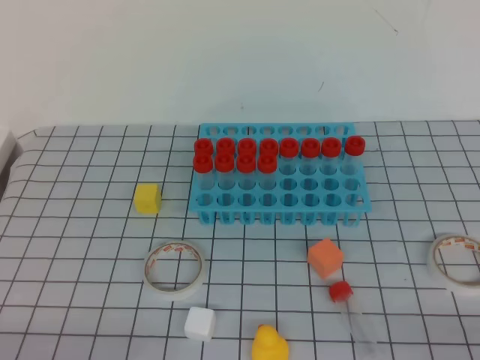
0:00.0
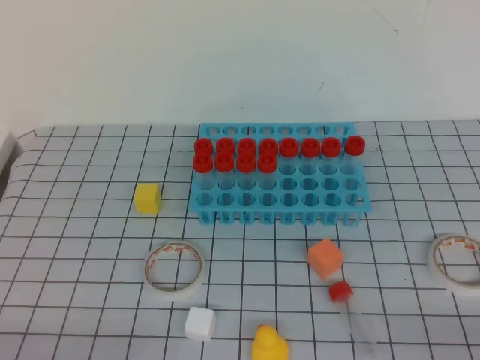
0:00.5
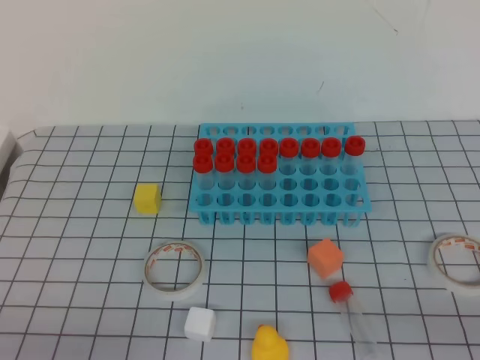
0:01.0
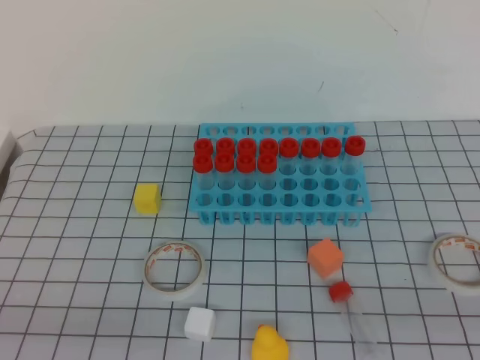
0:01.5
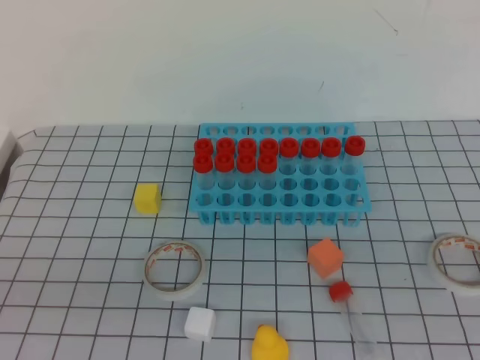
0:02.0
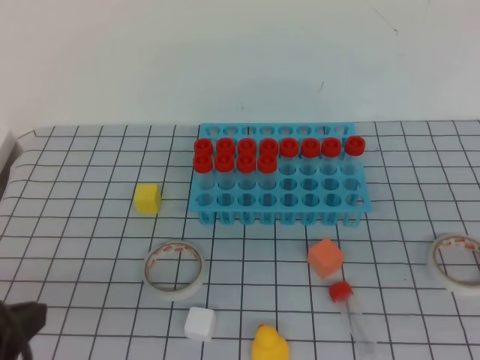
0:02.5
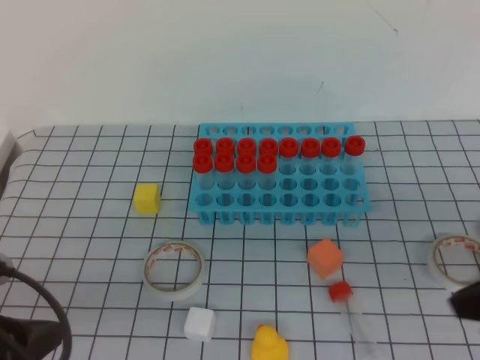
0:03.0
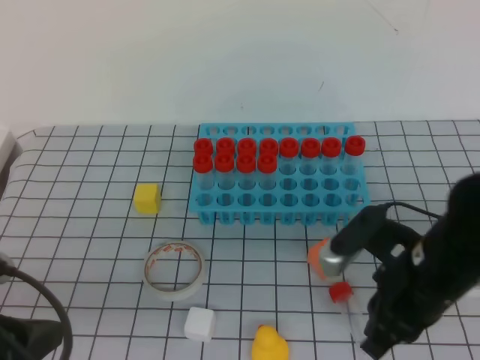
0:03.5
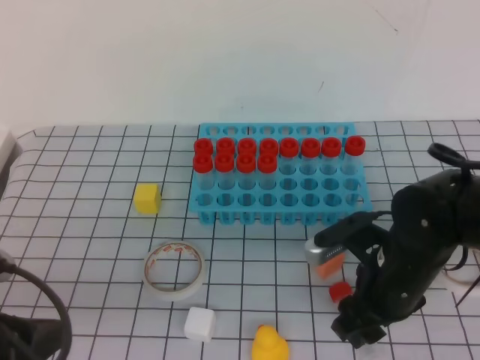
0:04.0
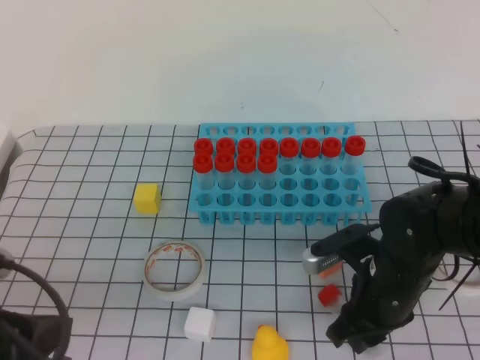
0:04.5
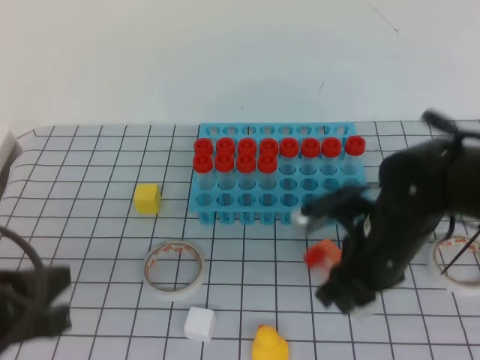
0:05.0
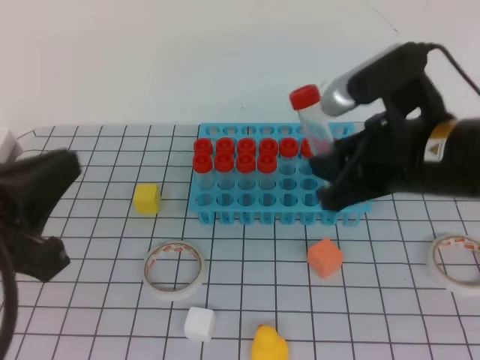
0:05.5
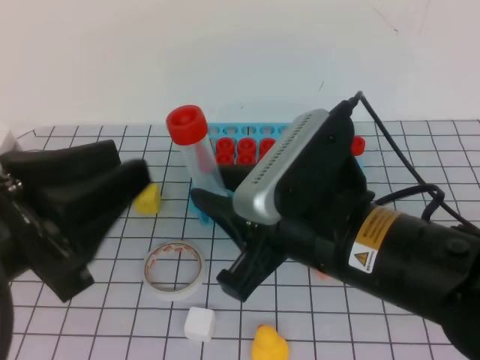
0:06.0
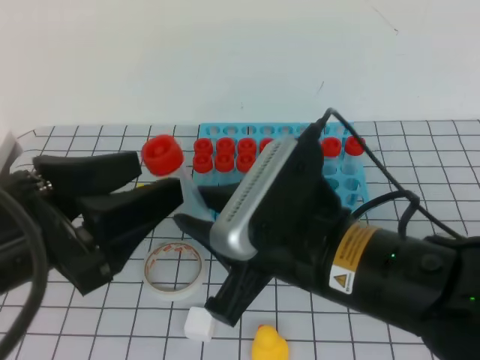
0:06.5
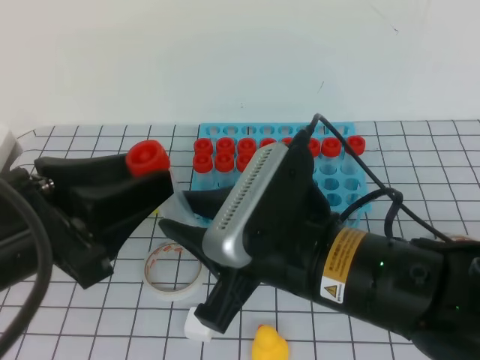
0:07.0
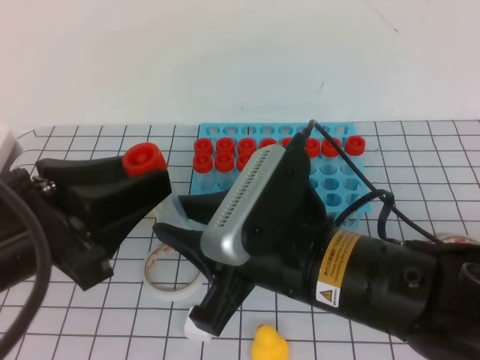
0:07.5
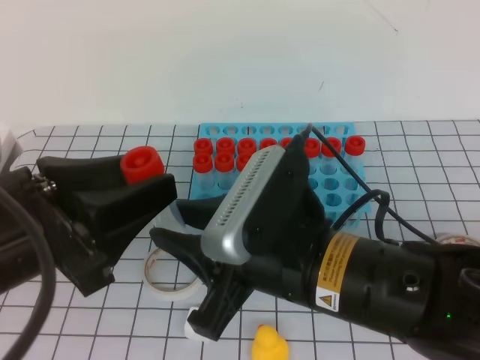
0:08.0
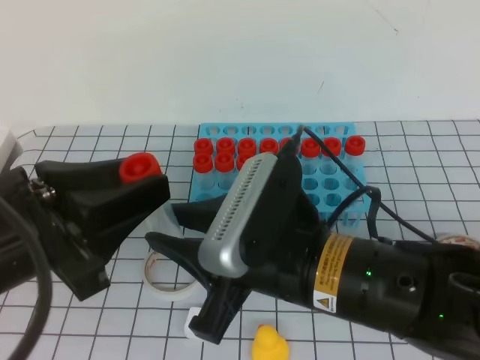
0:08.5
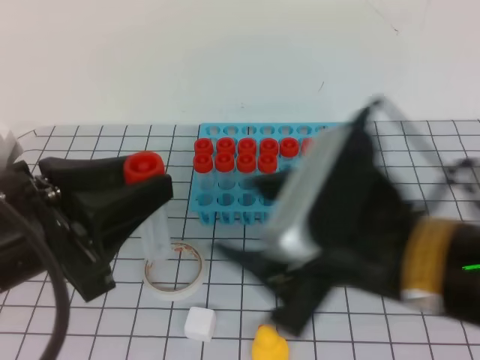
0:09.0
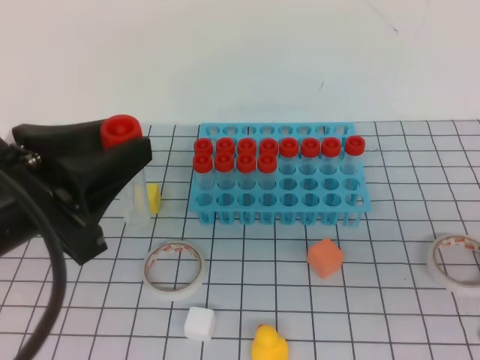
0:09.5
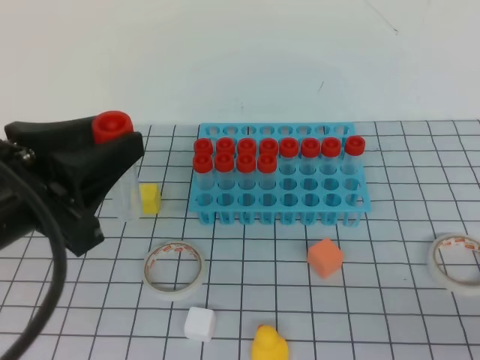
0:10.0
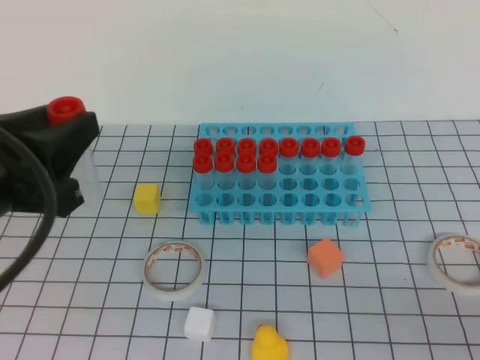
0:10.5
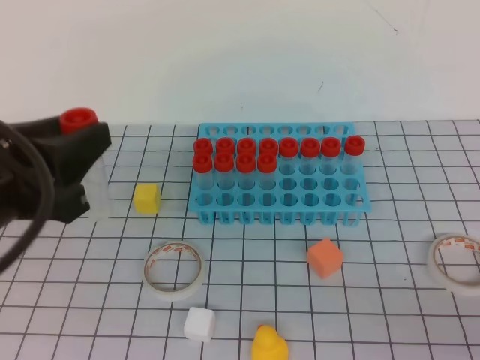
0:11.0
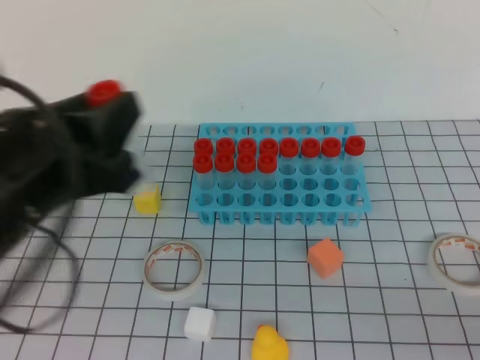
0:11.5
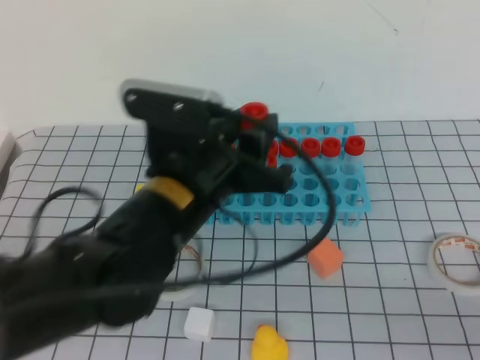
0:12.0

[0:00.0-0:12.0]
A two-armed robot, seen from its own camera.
0:02.0 to 0:04.0: The right gripper travels forward, to the left and downward by roughly 35 cm, and opens its fingers. Meanwhile the left gripper goes about 10 cm forward.
0:04.0 to 0:06.0: The right gripper heads upward, backward and to the left, covering about 15 cm, and closes. The left gripper is displaced upward by approximately 10 cm, and opens its fingers.
0:08.0 to 0:10.0: The right gripper is displaced to the right and backward by about 25 cm, and closes up.
0:10.0 to 0:12.0: The left gripper moves to the right and forward, roughly 15 cm.

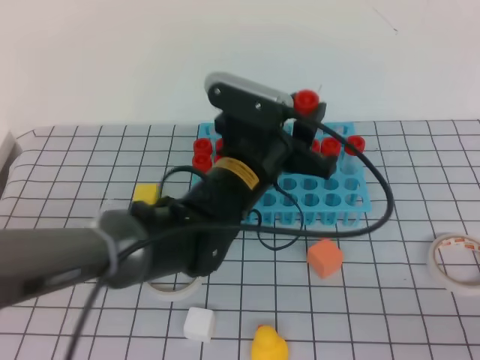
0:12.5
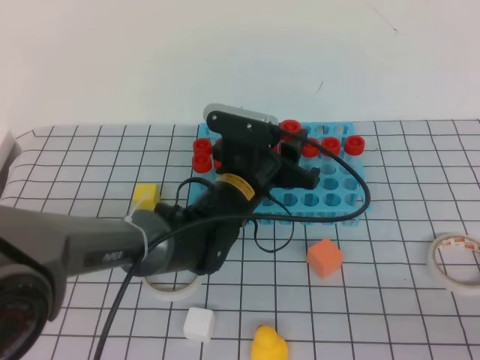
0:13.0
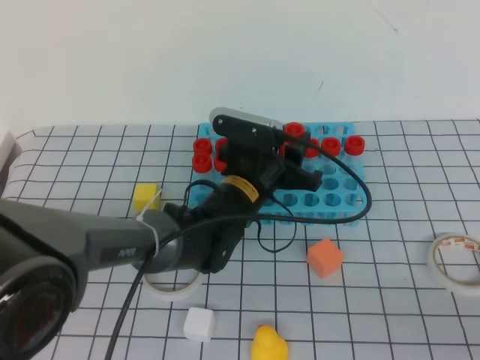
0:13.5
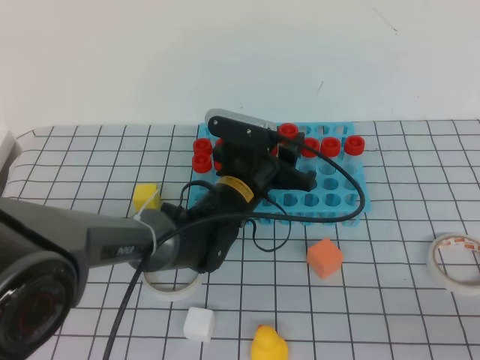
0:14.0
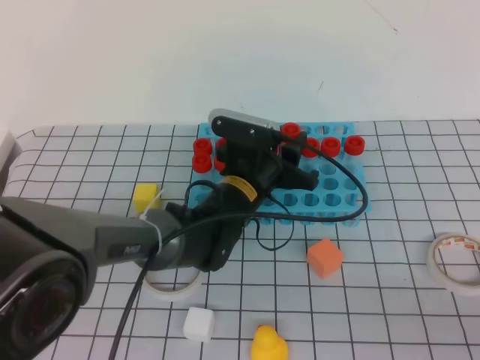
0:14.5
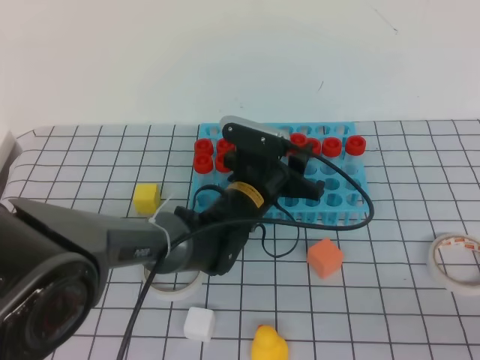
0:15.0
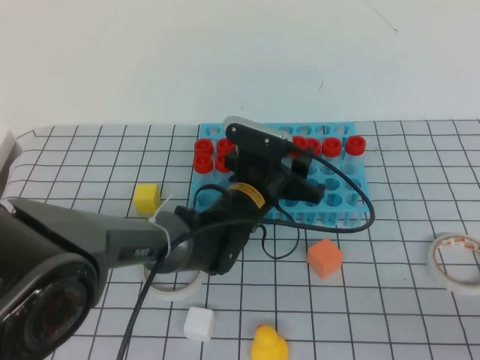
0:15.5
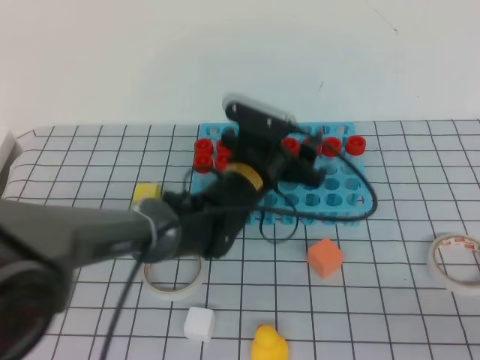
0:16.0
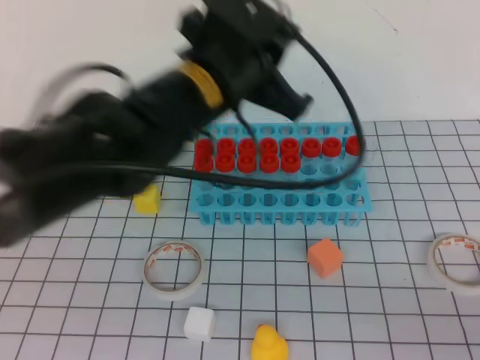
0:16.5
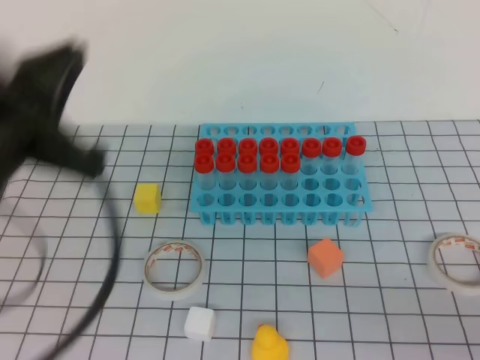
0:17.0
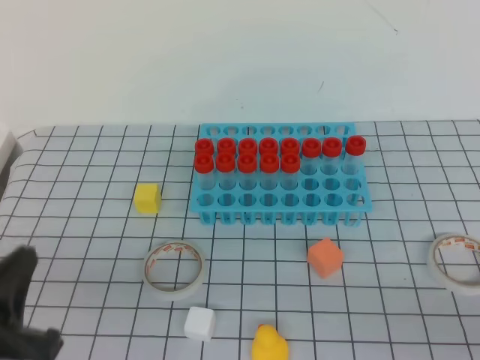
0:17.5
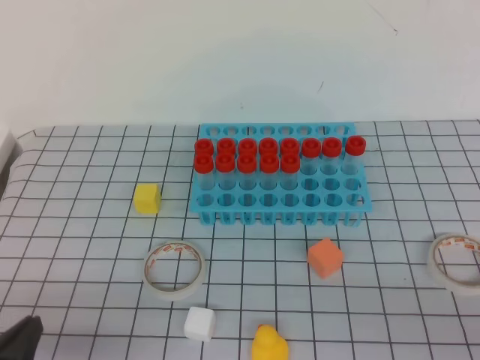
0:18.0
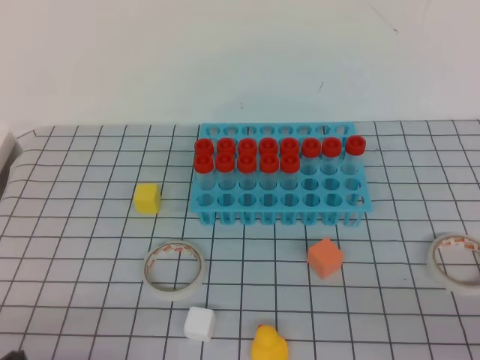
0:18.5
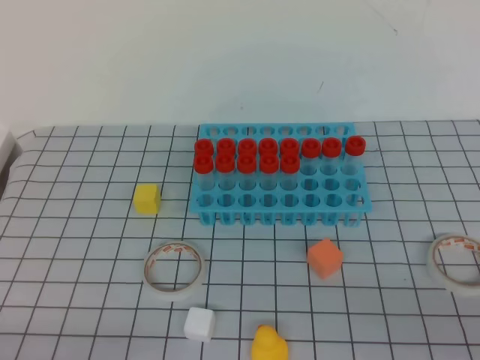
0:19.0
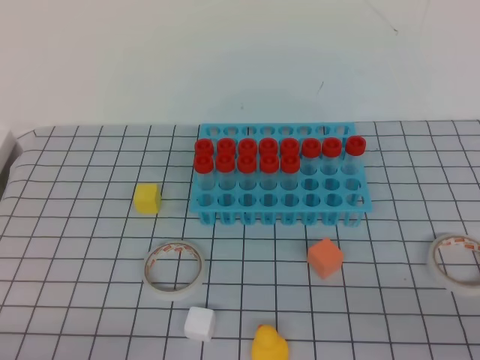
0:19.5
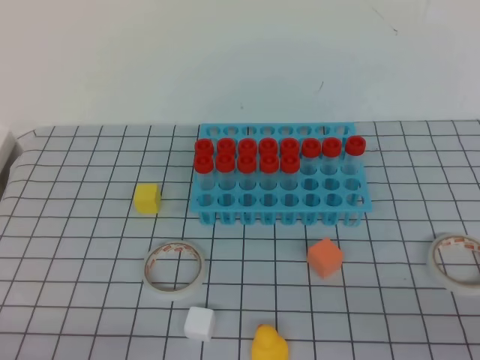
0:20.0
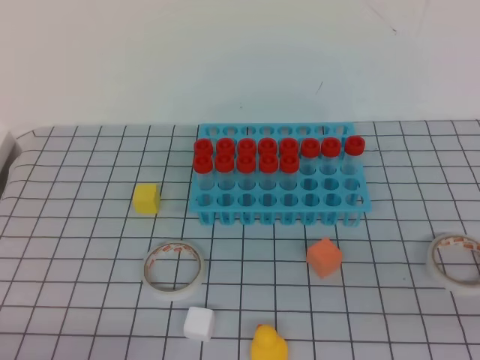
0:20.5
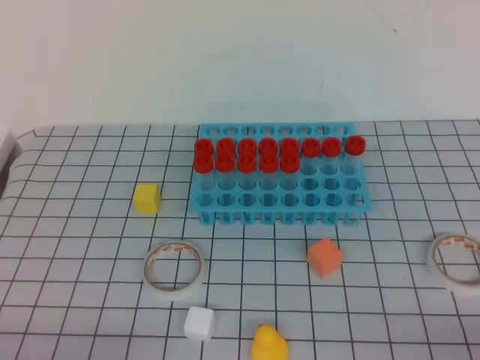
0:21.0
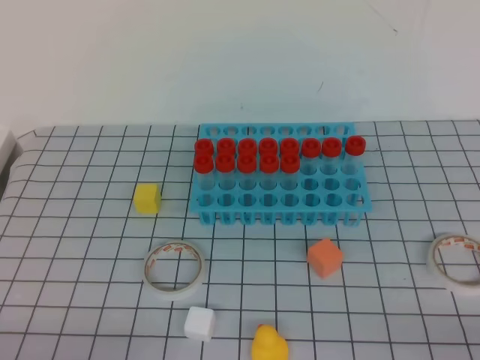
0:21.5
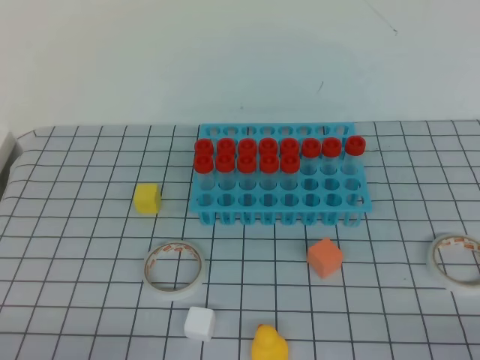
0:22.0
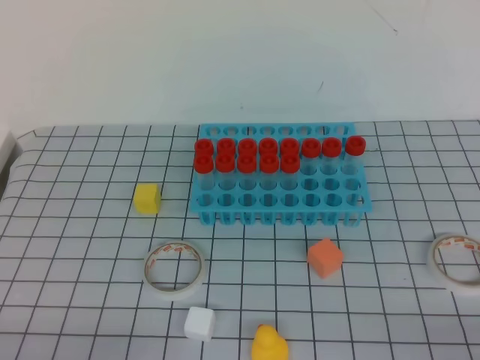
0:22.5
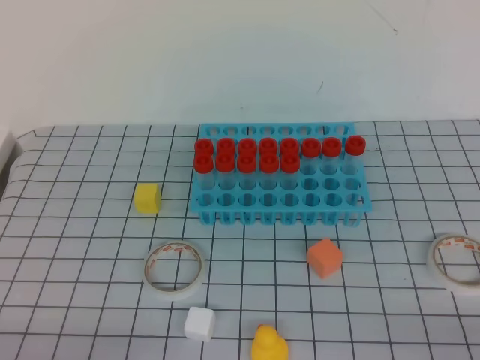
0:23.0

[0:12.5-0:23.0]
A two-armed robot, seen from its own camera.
0:12.5 to 0:14.5: The left gripper travels downward and forward by roughly 10 cm.
0:14.5 to 0:16.5: The left gripper is displaced upward by roughly 20 cm, and closes up.
0:16.5 to 0:19.0: The left gripper heads backward, to the left and downward, covering about 40 cm.
0:19.0 to 0:21.0: The right gripper goes about 15 cm downward and to the right.

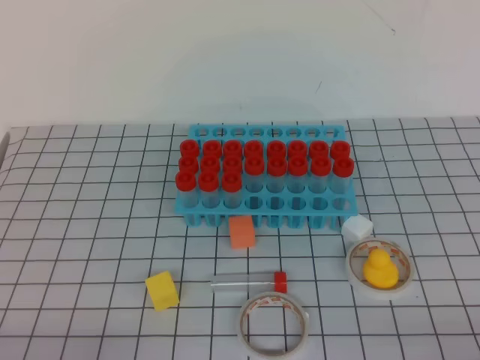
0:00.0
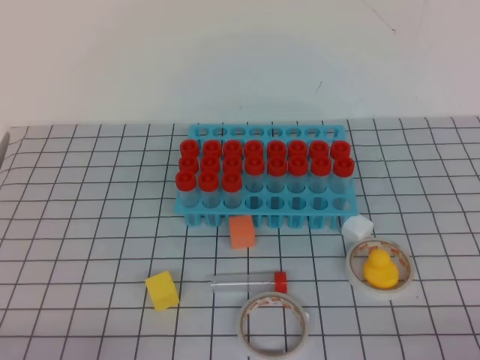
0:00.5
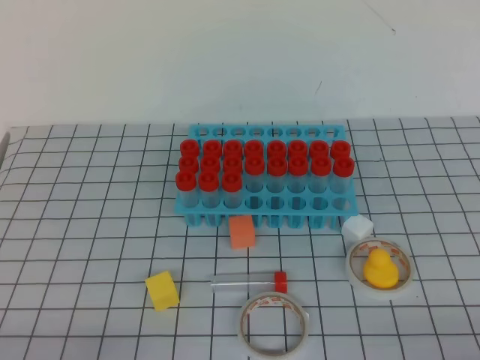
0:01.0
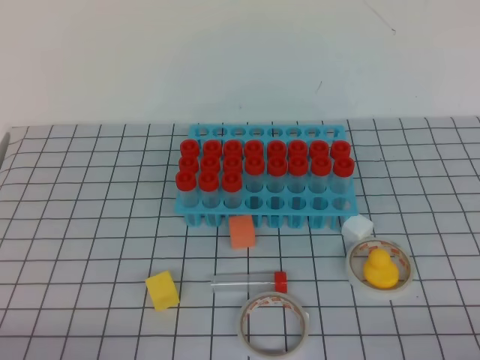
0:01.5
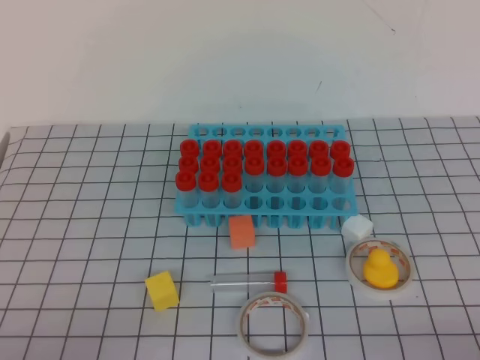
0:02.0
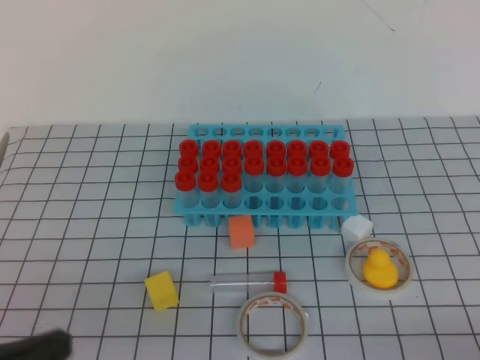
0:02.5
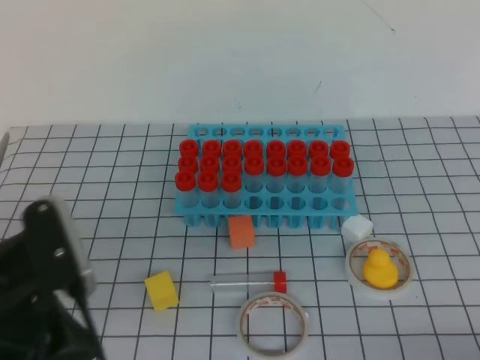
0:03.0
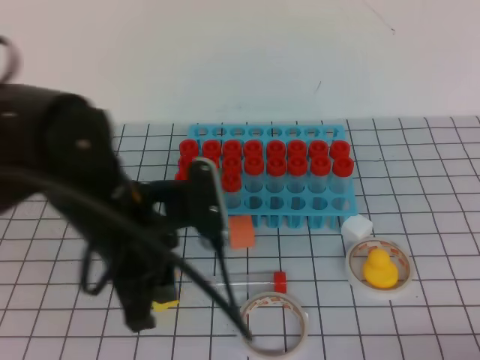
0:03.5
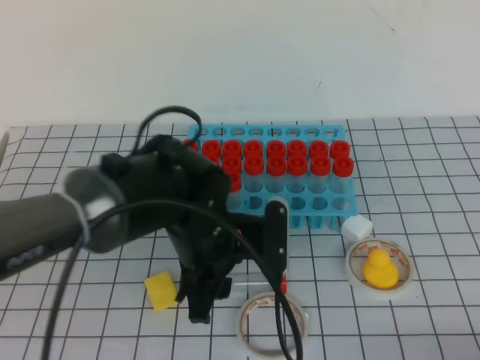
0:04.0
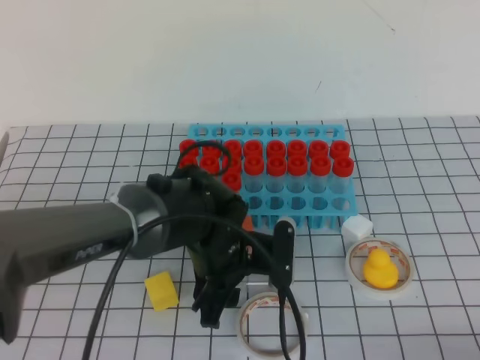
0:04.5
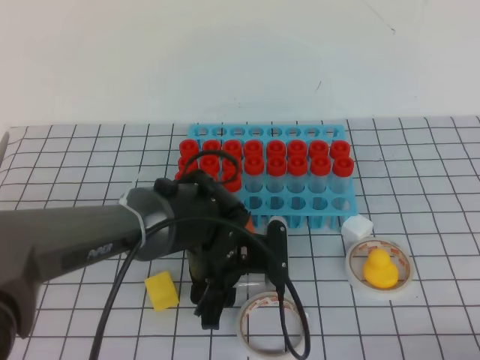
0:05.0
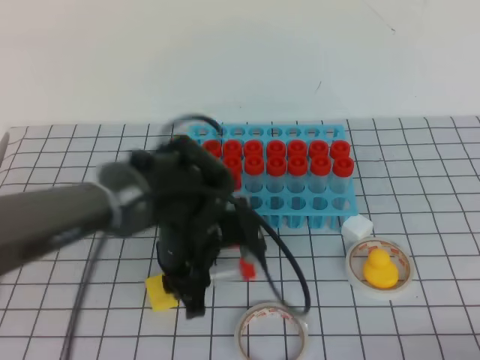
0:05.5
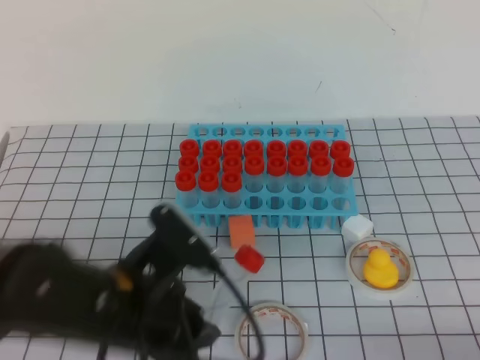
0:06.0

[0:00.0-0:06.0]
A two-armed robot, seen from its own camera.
0:02.0 to 0:04.0: The left gripper moves forward and to the right, some 30 cm, and opens.
0:04.0 to 0:06.0: The left gripper travels backward and to the left by approximately 10 cm.
